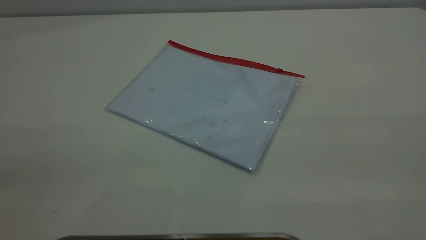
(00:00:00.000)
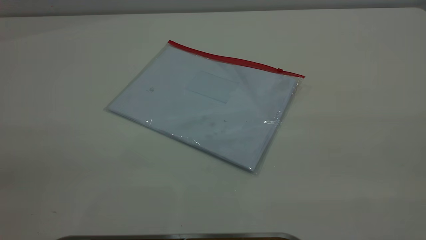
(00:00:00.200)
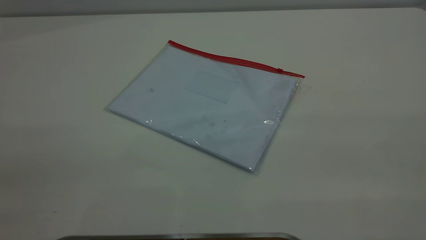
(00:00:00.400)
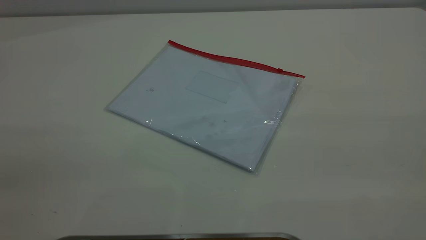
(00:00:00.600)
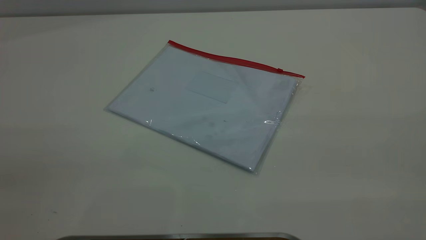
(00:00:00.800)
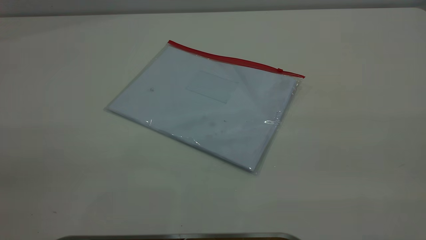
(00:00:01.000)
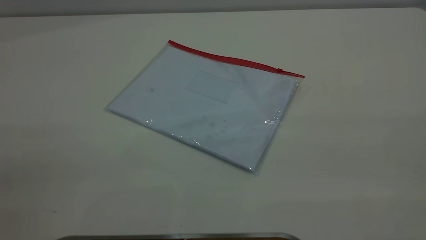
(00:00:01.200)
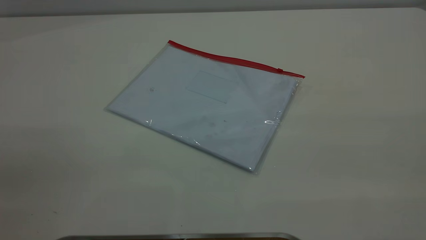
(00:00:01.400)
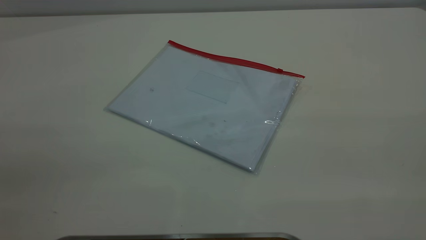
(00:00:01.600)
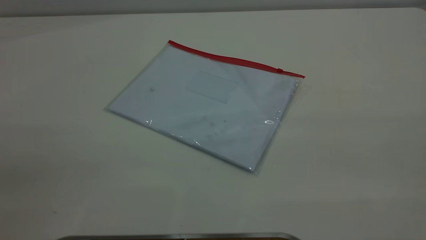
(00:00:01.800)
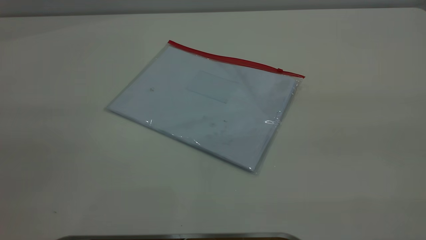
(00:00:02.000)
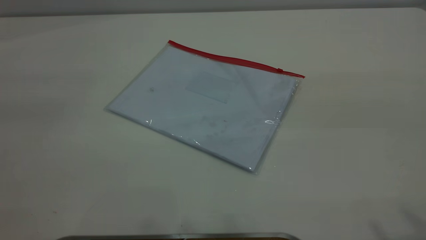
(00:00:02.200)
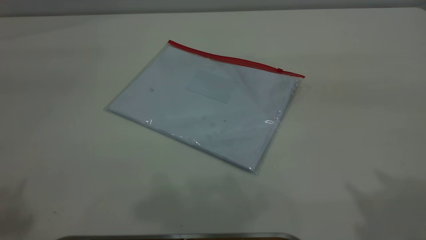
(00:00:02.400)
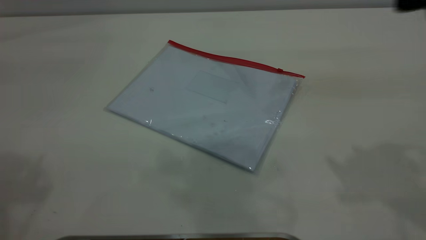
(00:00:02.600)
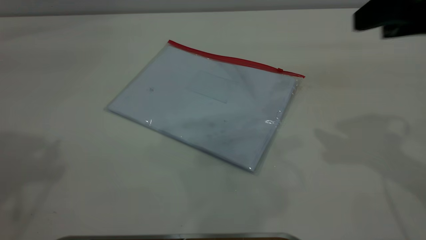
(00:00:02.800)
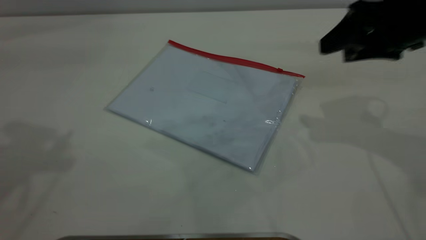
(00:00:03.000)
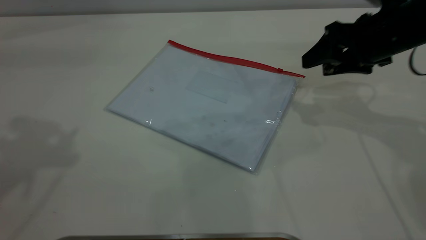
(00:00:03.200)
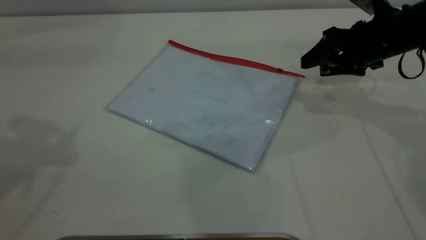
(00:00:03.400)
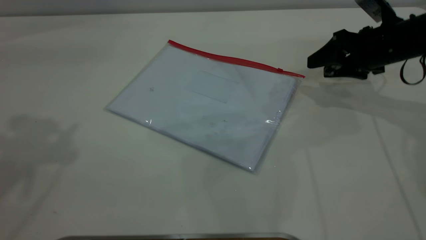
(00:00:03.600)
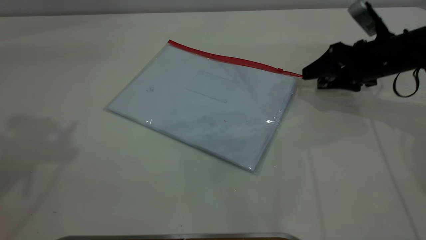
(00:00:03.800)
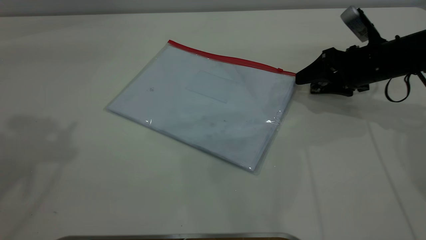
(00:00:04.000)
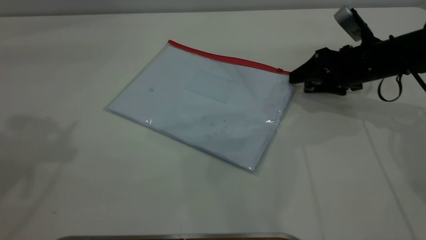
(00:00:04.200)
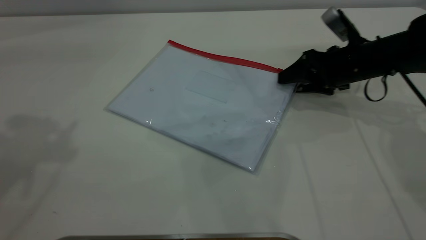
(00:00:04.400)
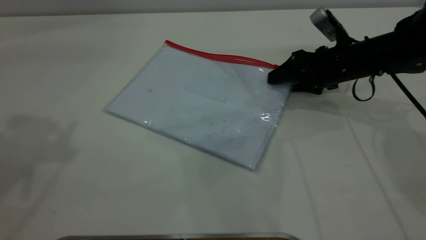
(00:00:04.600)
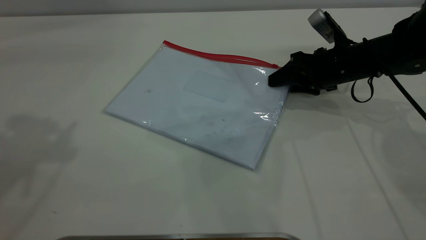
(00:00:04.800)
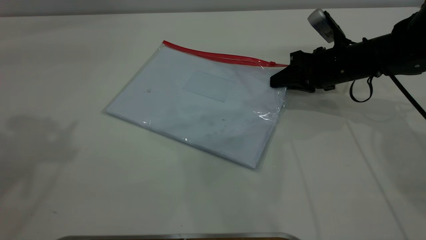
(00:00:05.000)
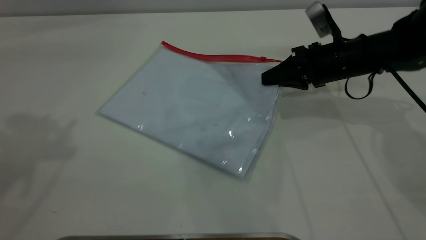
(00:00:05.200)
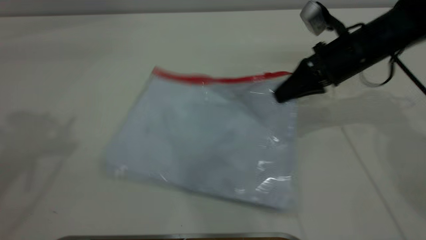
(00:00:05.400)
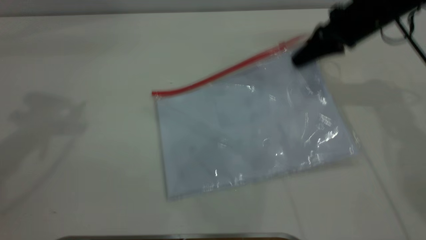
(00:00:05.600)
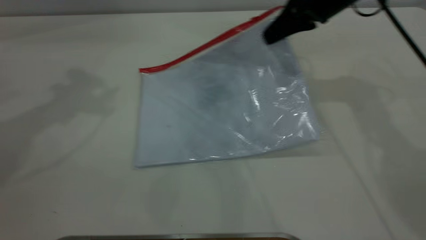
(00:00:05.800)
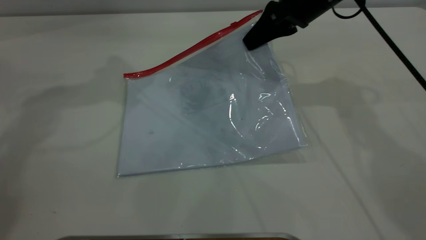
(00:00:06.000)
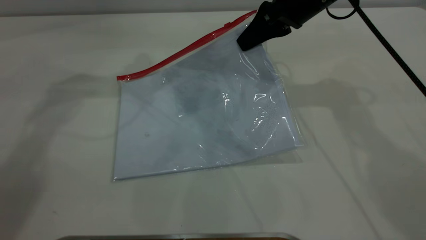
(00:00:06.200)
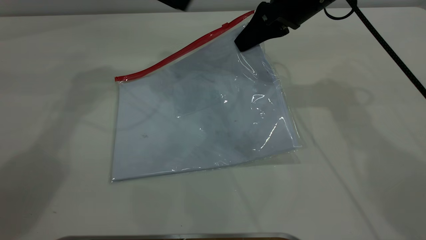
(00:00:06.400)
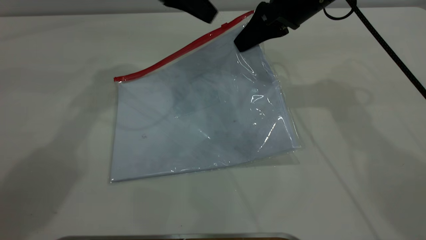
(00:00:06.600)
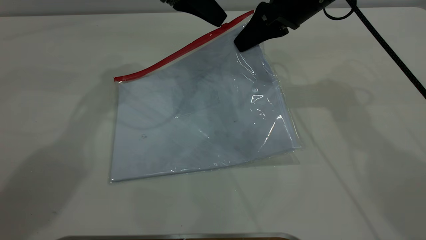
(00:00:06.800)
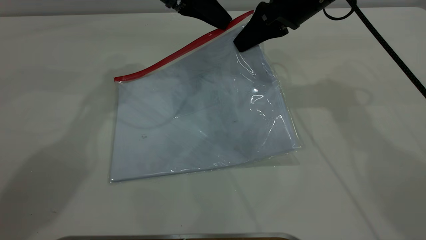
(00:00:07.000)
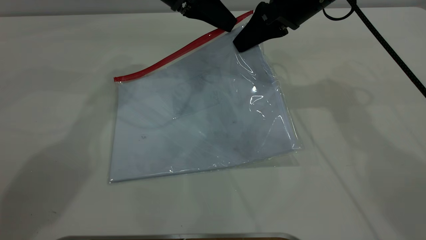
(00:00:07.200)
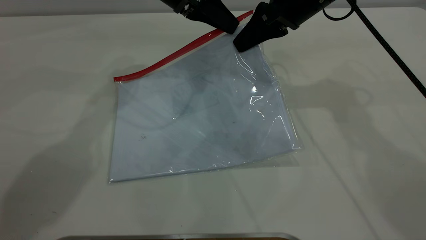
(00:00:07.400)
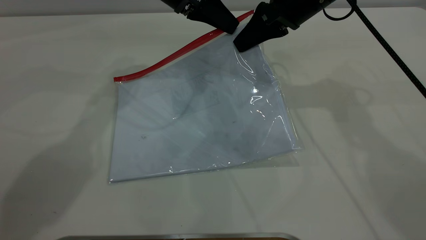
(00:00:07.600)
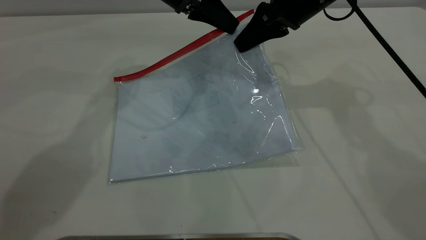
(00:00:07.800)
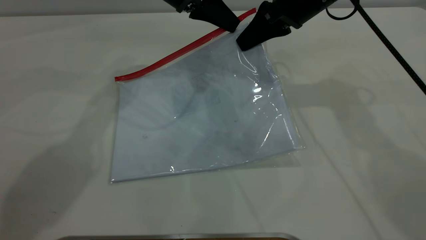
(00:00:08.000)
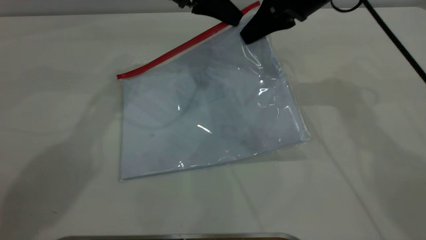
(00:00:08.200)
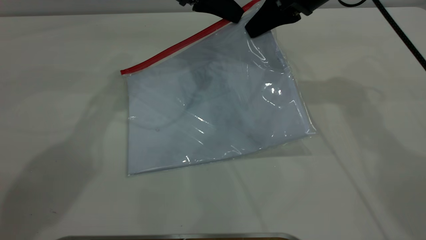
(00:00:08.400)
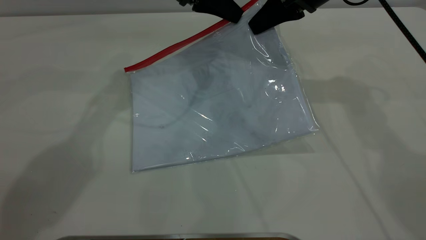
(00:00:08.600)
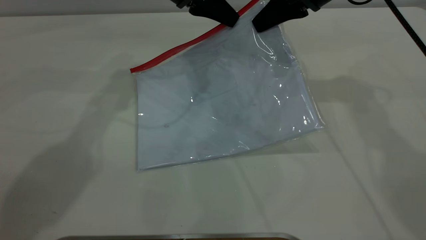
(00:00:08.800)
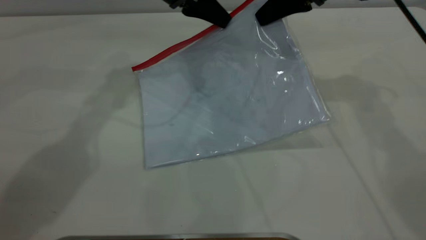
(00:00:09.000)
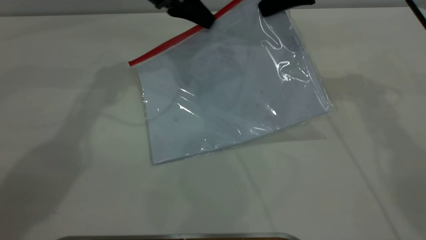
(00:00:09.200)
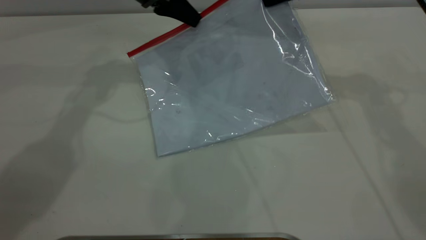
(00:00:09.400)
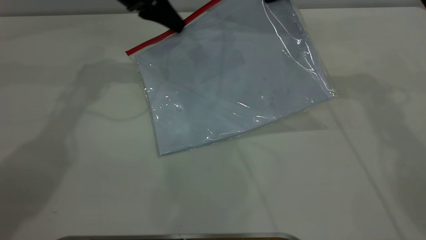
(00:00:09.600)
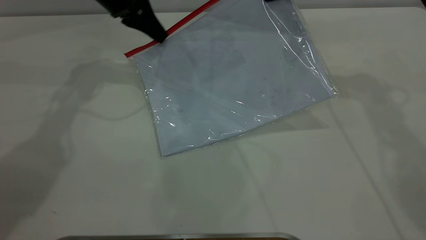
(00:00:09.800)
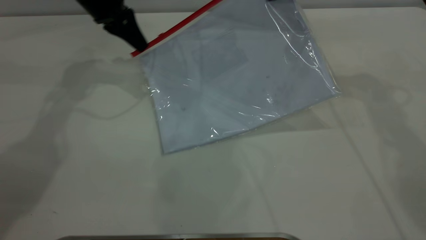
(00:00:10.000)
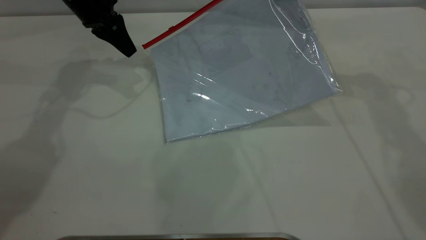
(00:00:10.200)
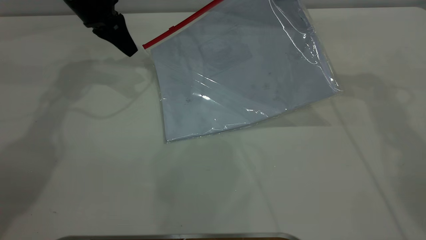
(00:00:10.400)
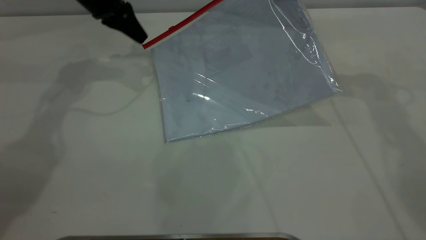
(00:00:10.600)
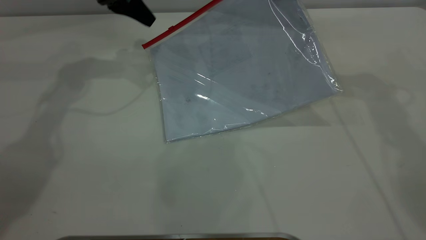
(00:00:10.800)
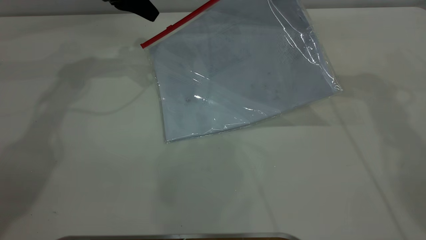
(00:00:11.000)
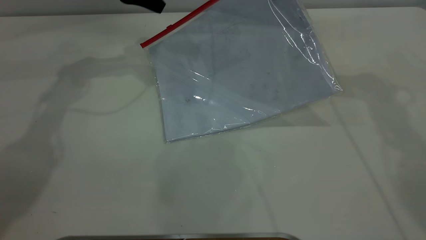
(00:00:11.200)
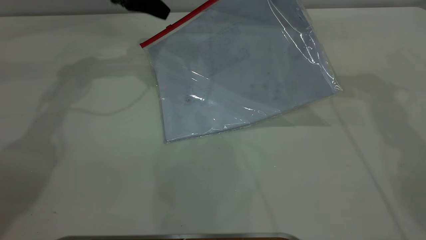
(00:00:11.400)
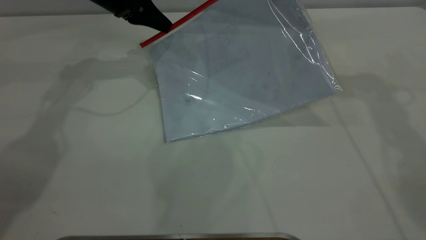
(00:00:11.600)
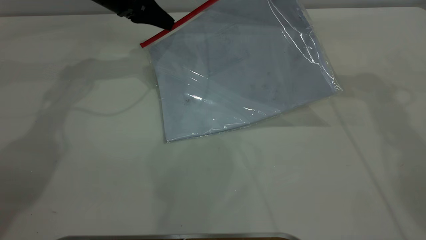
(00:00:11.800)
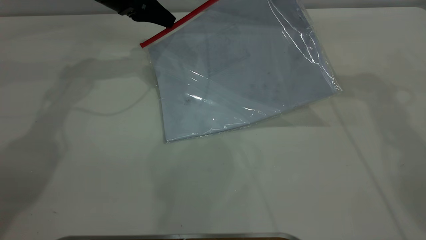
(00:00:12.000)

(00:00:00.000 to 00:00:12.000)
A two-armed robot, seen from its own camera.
Step, 00:00:00.000 - 00:00:06.000: Pick up the transparent plastic bag with the right gripper.
00:00:00.000 - 00:00:01.600: Neither gripper changes place.
00:00:01.600 - 00:00:03.000: The right gripper is displaced forward and downward by roughly 40 cm.
00:00:03.000 - 00:00:04.400: The right gripper is displaced downward and forward by roughly 15 cm.
00:00:04.400 - 00:00:06.000: The left gripper travels forward, downward and to the right by about 20 cm. The right gripper travels upward and to the left by about 15 cm, and closes.
00:00:06.000 - 00:00:07.600: The left gripper moves to the right and downward, roughly 15 cm, and closes.
00:00:07.600 - 00:00:09.000: The right gripper changes place by about 5 cm.
00:00:09.000 - 00:00:10.400: The left gripper shifts roughly 10 cm to the left.
00:00:10.400 - 00:00:12.000: The left gripper opens its fingers.

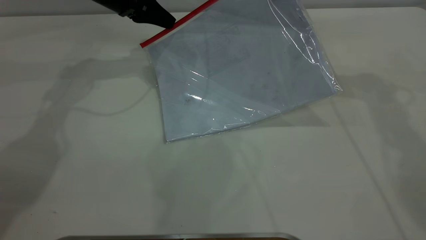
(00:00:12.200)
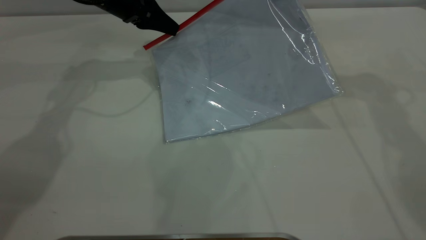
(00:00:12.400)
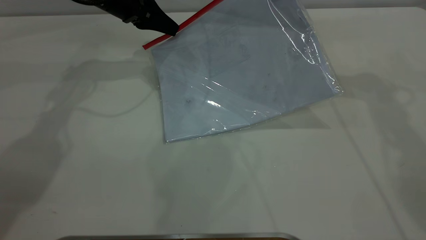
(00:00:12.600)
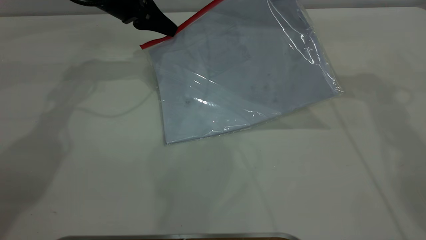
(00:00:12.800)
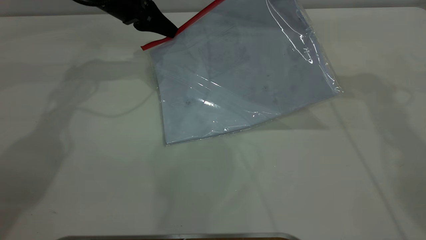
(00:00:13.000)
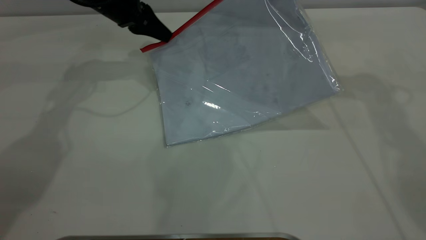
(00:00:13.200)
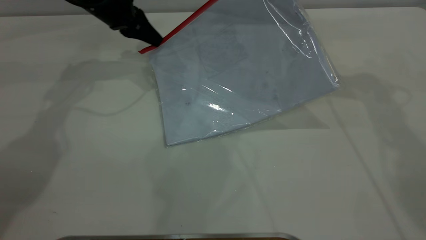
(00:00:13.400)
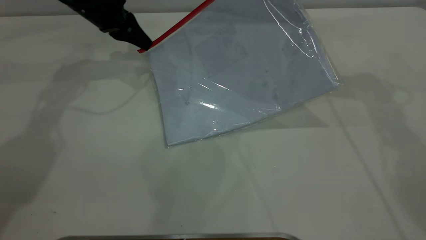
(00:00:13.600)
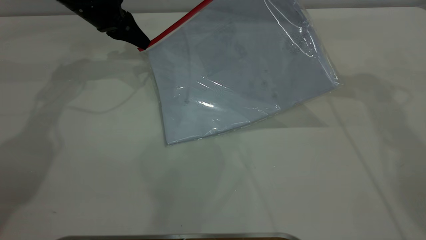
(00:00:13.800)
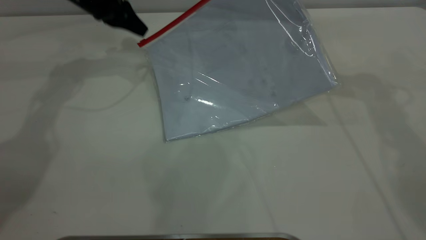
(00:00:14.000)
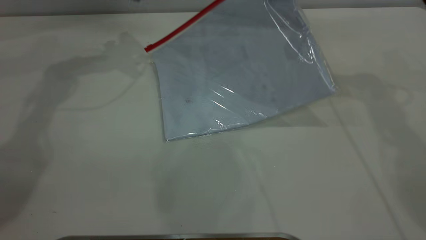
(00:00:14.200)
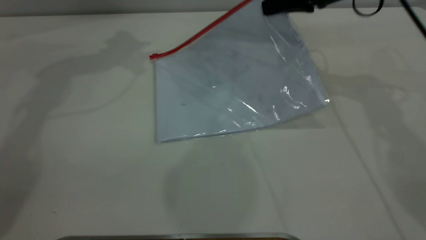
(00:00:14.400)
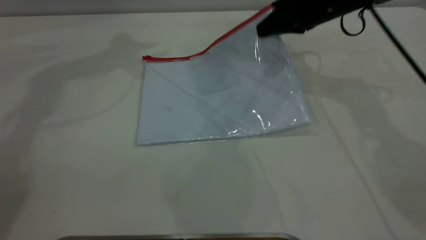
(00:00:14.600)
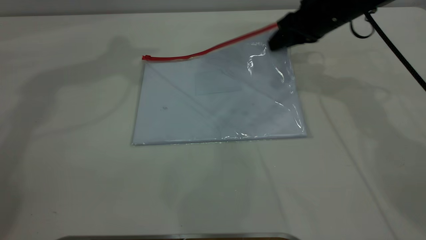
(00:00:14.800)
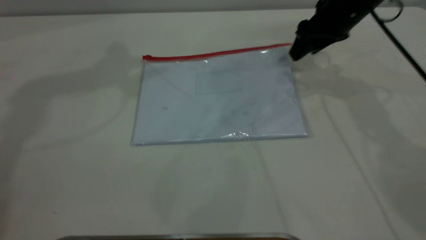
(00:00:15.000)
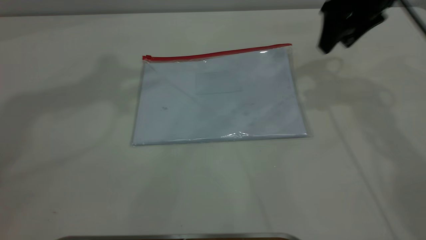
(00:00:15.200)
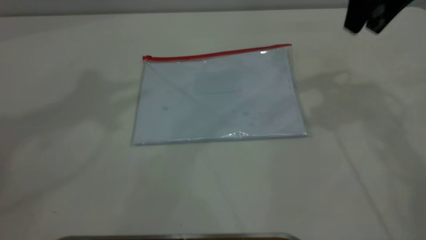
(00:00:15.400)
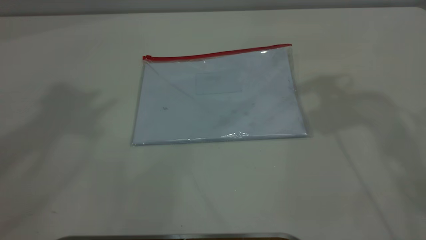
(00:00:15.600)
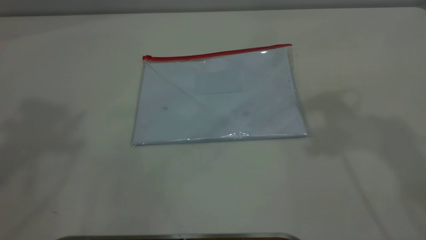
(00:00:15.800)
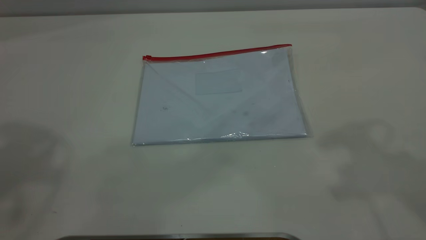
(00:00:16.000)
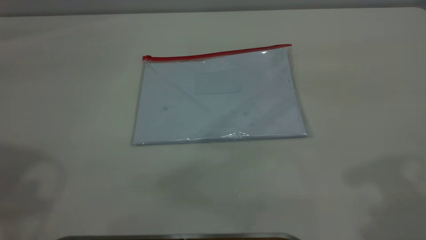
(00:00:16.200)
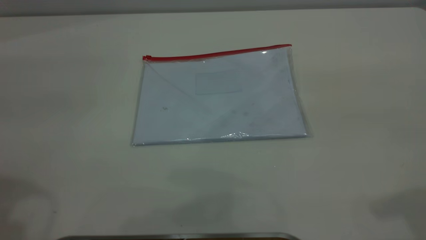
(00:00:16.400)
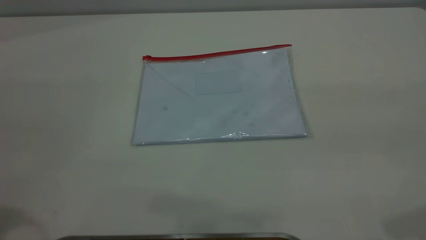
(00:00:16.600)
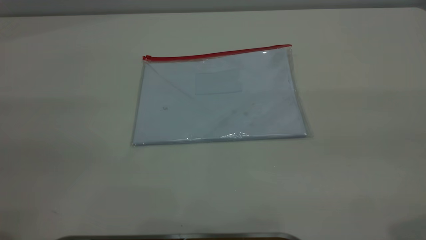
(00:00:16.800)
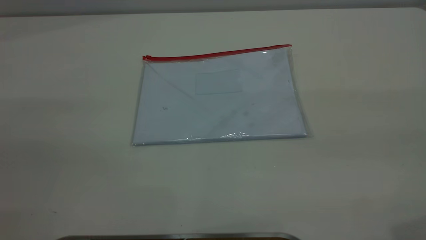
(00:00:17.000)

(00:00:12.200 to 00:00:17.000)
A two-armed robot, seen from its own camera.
Step, 00:00:14.200 - 00:00:15.600: Place the transparent plastic bag.
00:00:12.200 - 00:00:13.800: The left gripper closes.
00:00:13.800 - 00:00:15.400: The right gripper goes roughly 10 cm upward and backward, and opens. The left gripper travels upward by some 40 cm, and opens.
00:00:15.400 - 00:00:17.000: The right gripper is displaced backward by some 30 cm.
